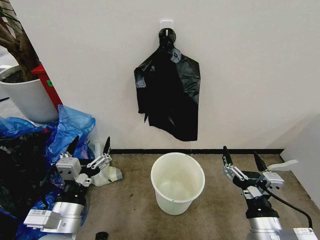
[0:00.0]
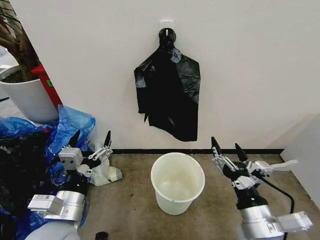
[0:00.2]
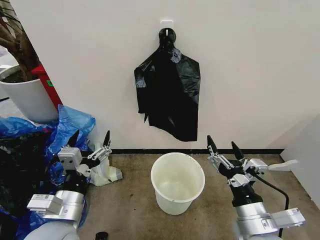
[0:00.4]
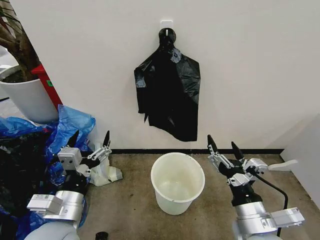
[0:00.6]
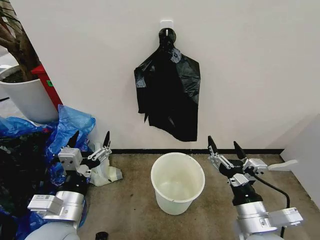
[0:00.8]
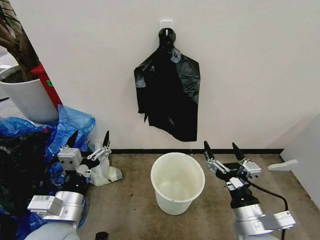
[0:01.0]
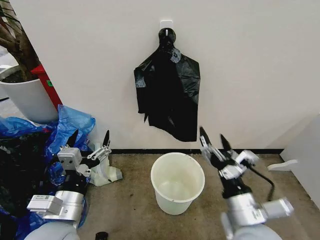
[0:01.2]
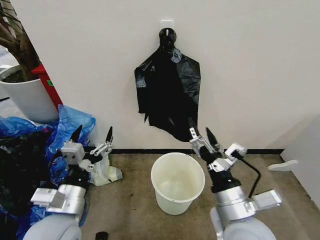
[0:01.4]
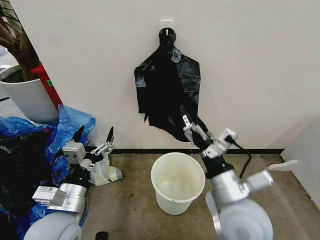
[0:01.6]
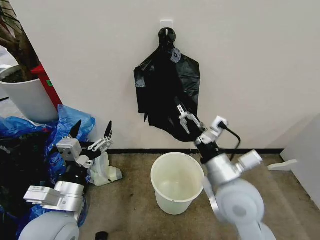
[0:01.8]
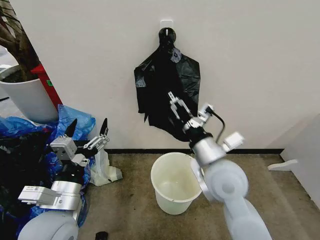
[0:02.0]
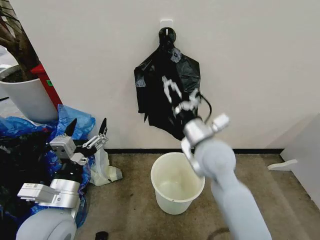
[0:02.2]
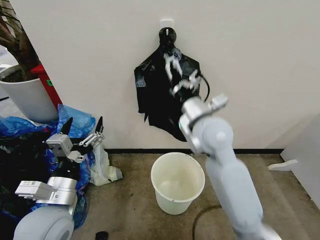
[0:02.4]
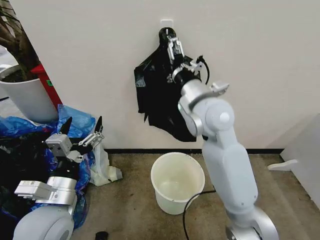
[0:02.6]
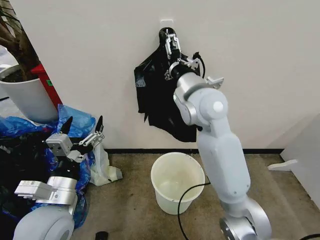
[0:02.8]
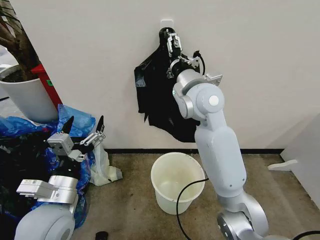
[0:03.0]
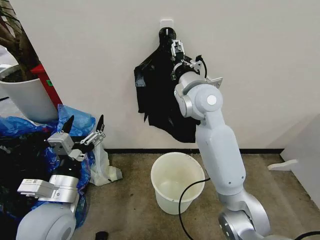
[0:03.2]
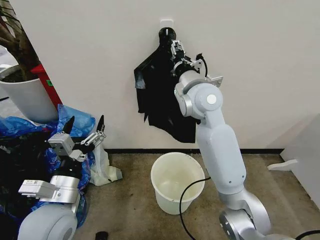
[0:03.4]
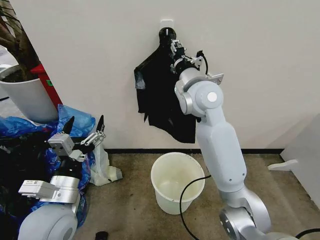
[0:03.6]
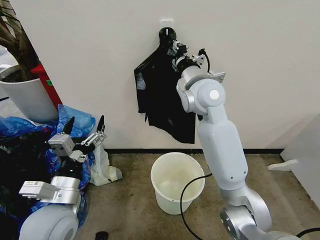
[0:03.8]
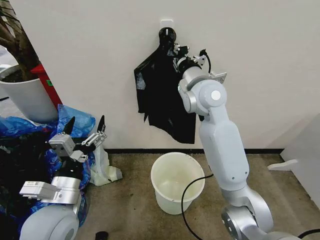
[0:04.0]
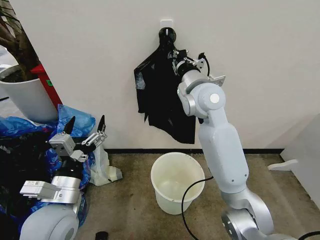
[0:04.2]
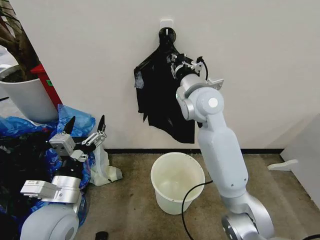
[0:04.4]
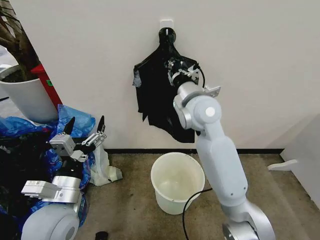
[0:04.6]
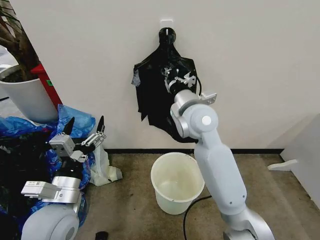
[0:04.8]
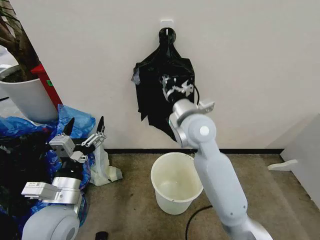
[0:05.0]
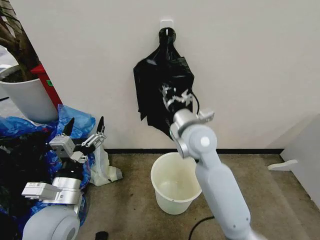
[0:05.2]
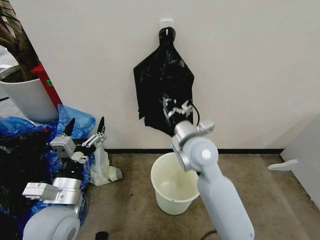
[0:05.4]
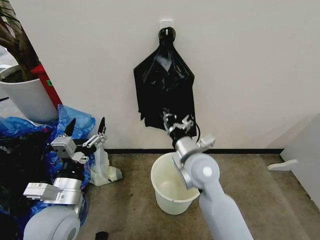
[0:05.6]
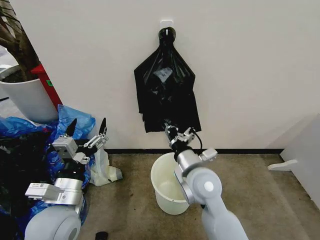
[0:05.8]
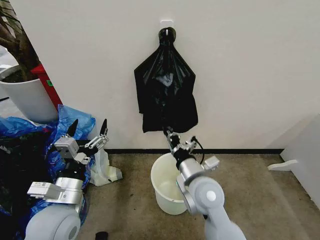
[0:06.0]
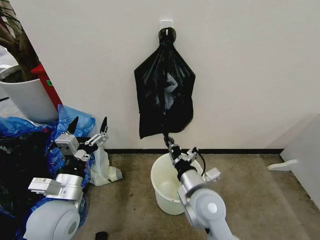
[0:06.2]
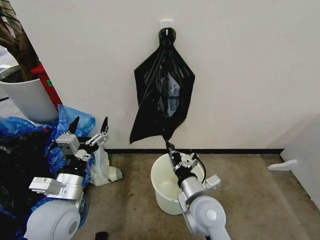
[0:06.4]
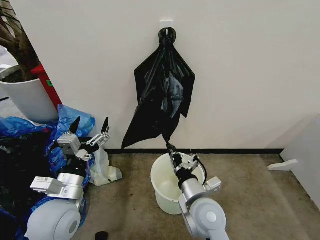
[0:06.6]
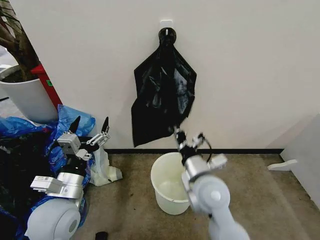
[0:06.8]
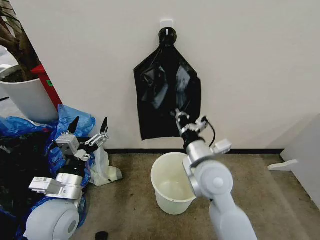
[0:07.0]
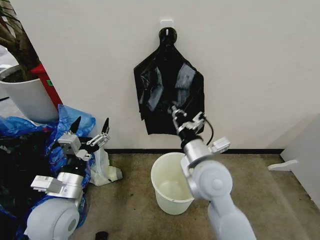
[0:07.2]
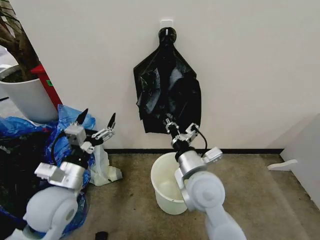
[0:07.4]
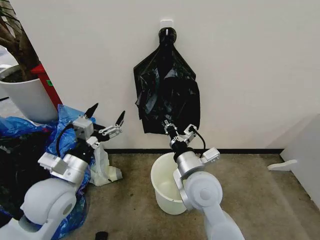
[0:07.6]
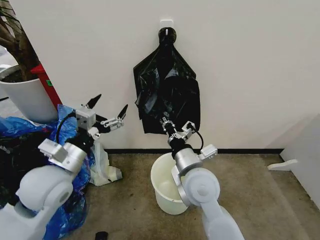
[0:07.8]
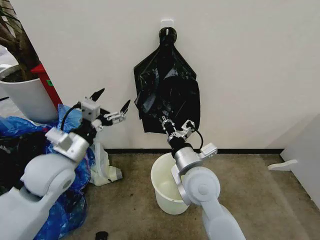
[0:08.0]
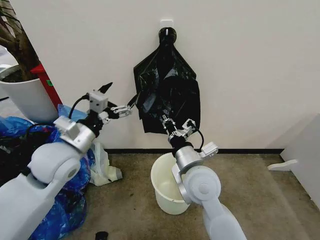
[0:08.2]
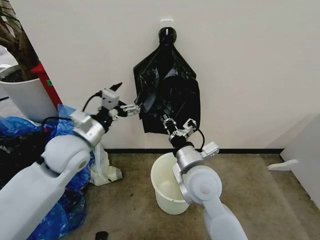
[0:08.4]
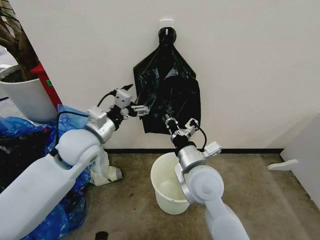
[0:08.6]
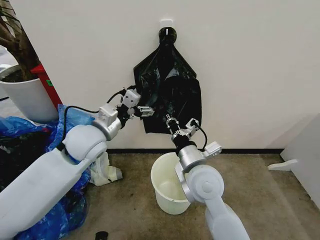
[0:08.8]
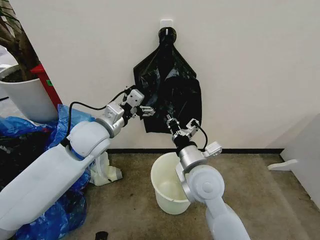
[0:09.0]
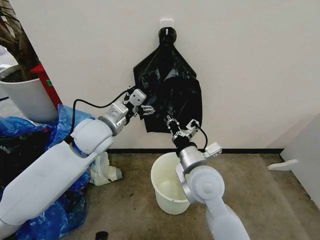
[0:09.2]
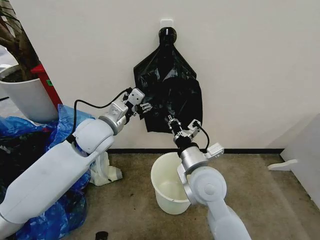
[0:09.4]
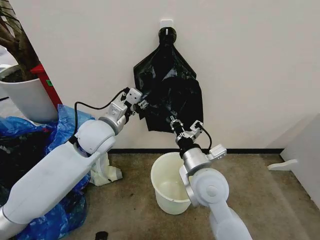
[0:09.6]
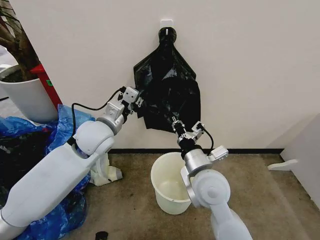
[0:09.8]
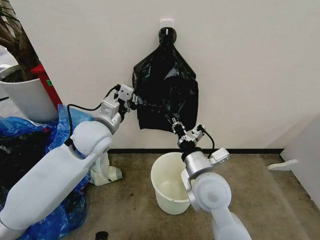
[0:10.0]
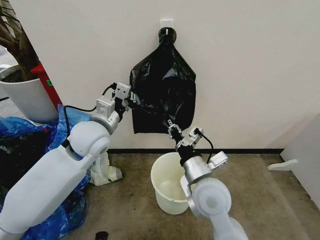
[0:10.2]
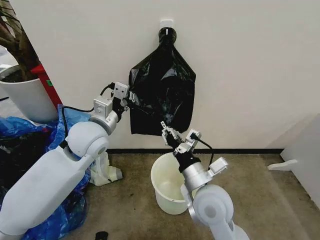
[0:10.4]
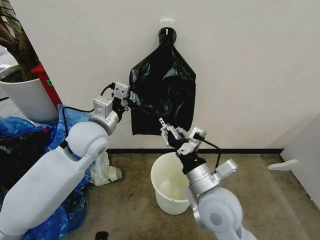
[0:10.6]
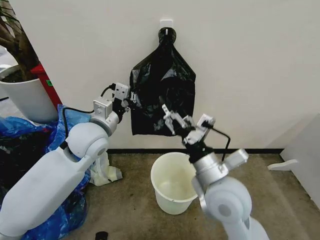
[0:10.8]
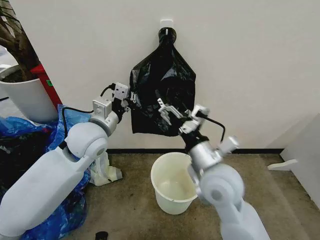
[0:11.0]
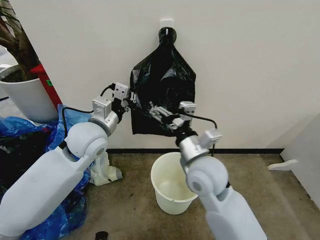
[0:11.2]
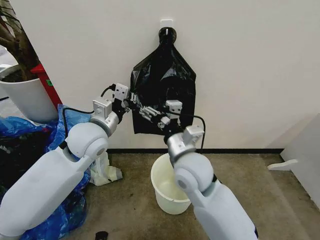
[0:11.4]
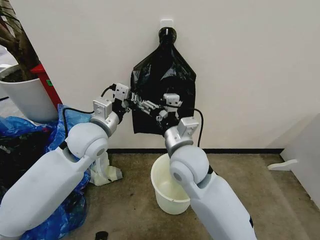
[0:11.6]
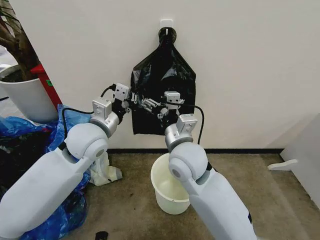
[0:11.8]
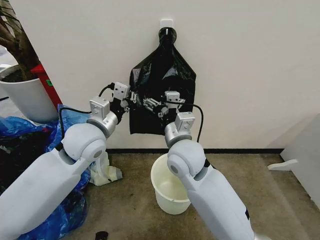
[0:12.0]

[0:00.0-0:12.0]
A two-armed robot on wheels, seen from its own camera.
Task of the whole recording: Place the garbage bag over the trash bin.
0:01.6 to 0:03.0: The right gripper is displaced forward and upward by roughly 25 cm.
0:03.0 to 0:04.4: The right gripper closes its fingers.
0:04.4 to 0:06.0: The right gripper is displaced downward and backward by approximately 25 cm.
0:06.0 to 0:07.6: The left gripper ends up approximately 5 cm from where it was, while the right gripper travels upward and back again, approximately 5 cm each way.
0:07.6 to 0:09.0: The left gripper travels forward, to the right and upward by approximately 15 cm.
0:09.0 to 0:10.4: The right gripper changes place by approximately 5 cm. Meanwhile the left gripper closes.
0:10.4 to 0:12.0: The right gripper shifts approximately 15 cm forward, upward and to the left, and opens its fingers.

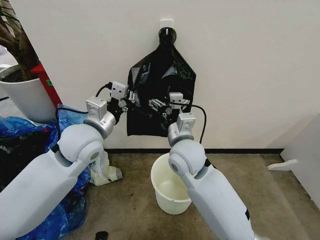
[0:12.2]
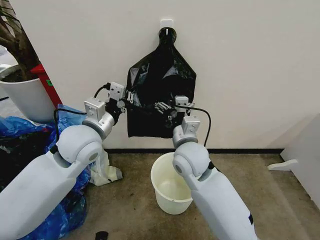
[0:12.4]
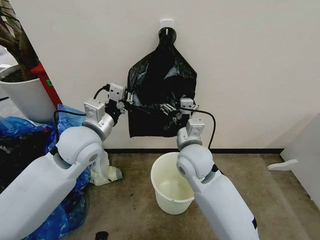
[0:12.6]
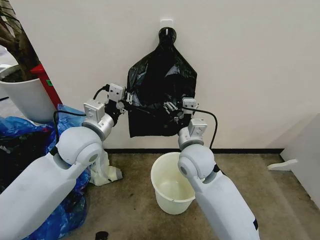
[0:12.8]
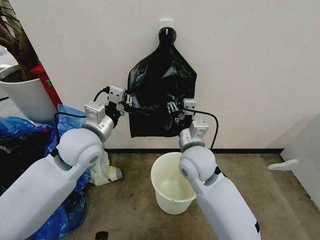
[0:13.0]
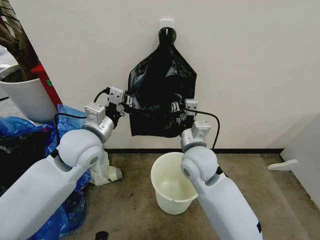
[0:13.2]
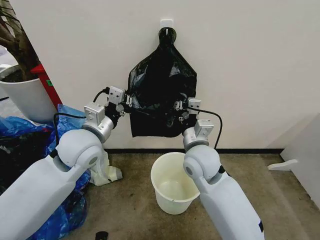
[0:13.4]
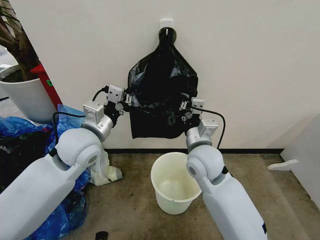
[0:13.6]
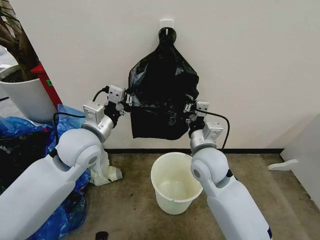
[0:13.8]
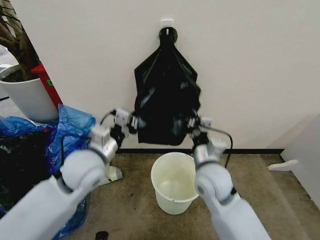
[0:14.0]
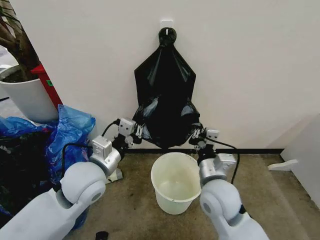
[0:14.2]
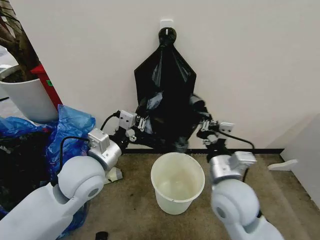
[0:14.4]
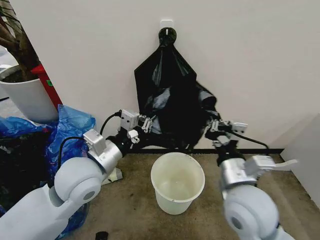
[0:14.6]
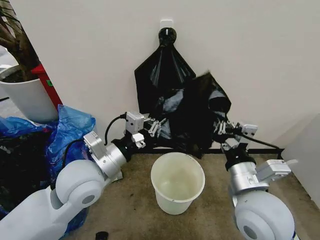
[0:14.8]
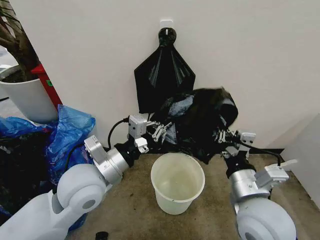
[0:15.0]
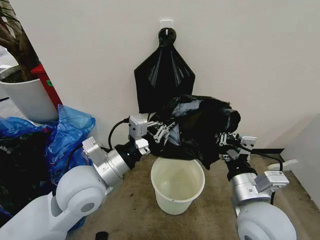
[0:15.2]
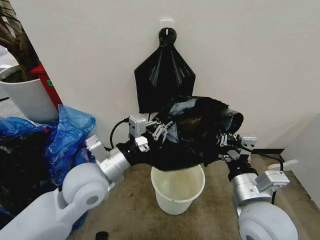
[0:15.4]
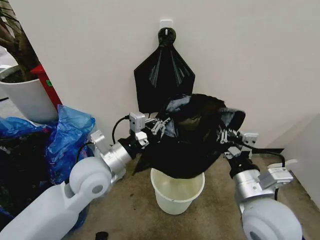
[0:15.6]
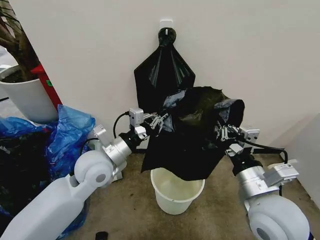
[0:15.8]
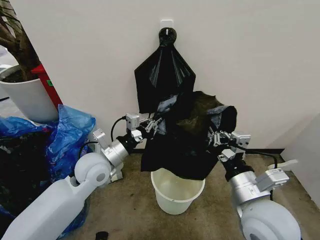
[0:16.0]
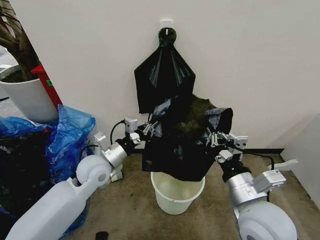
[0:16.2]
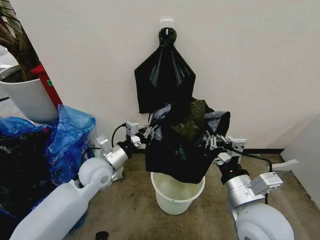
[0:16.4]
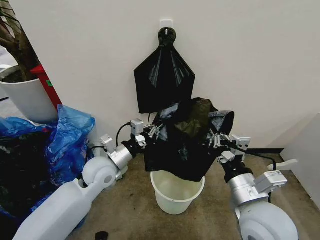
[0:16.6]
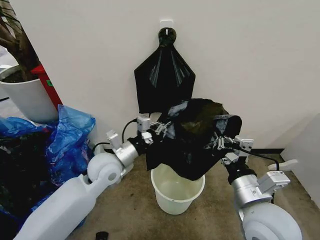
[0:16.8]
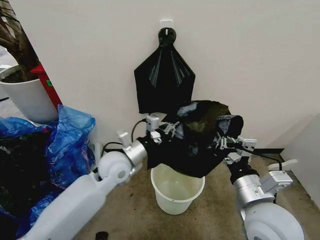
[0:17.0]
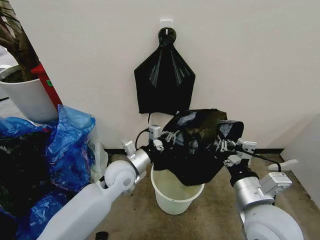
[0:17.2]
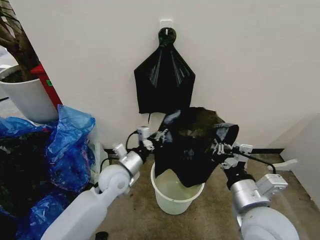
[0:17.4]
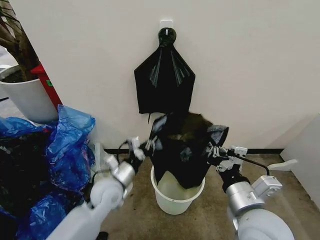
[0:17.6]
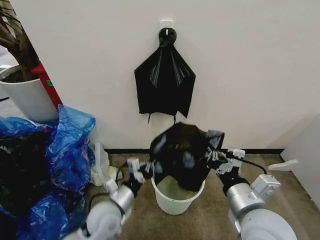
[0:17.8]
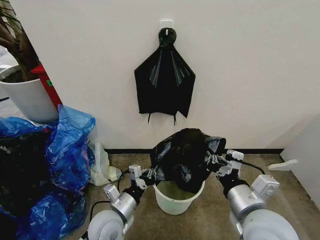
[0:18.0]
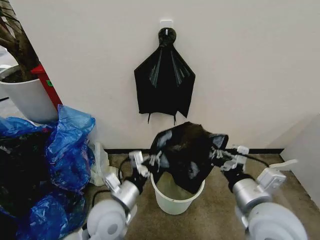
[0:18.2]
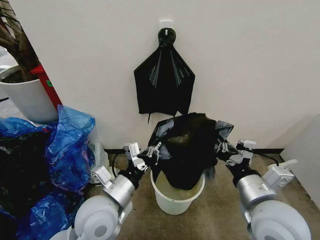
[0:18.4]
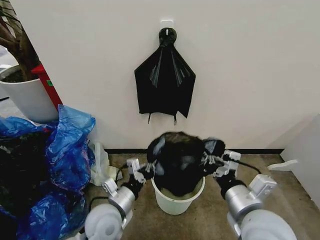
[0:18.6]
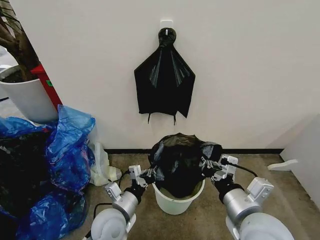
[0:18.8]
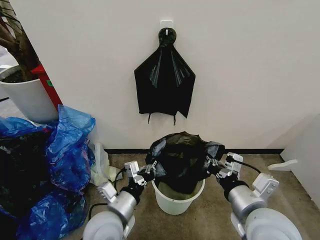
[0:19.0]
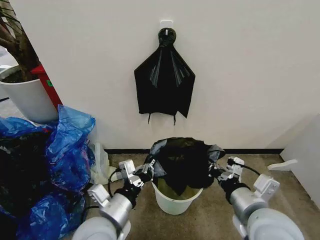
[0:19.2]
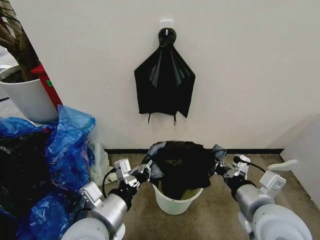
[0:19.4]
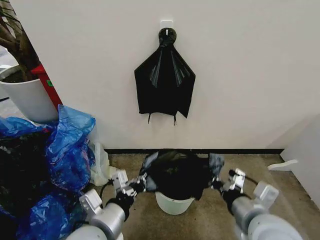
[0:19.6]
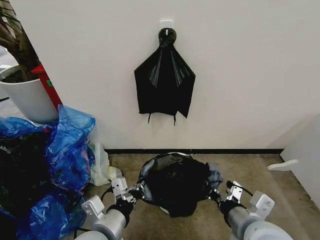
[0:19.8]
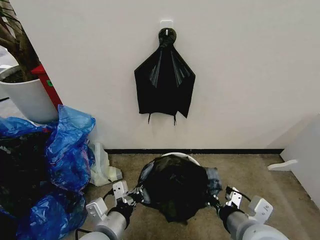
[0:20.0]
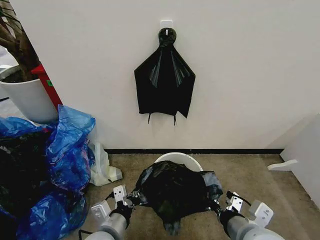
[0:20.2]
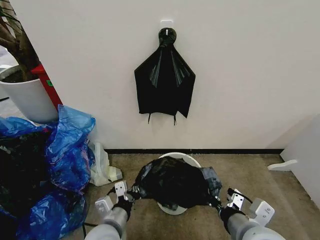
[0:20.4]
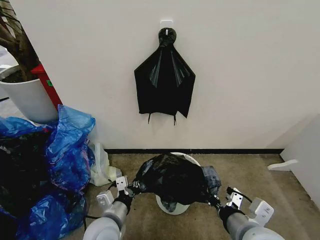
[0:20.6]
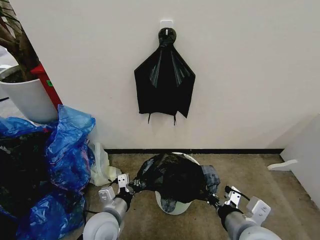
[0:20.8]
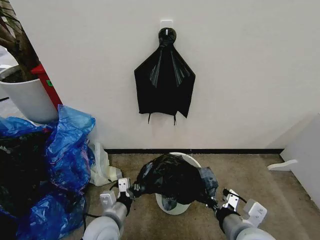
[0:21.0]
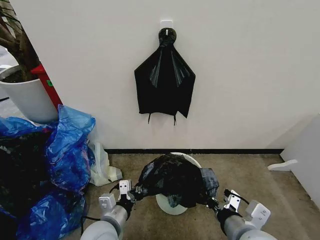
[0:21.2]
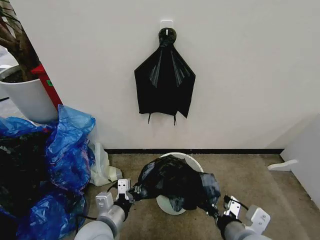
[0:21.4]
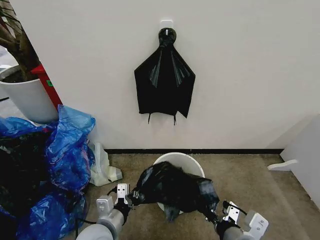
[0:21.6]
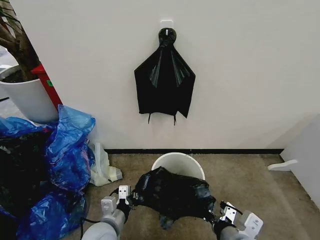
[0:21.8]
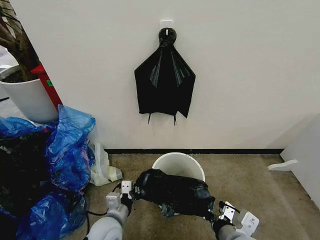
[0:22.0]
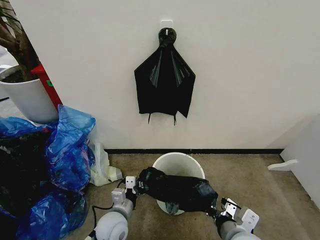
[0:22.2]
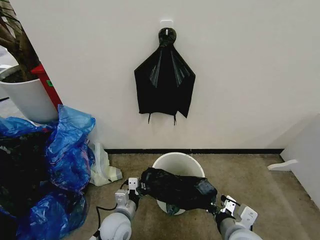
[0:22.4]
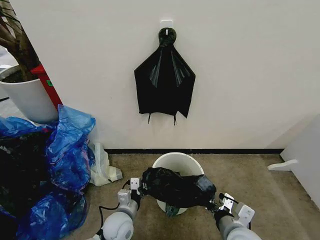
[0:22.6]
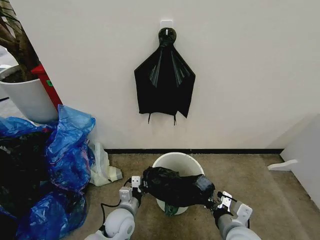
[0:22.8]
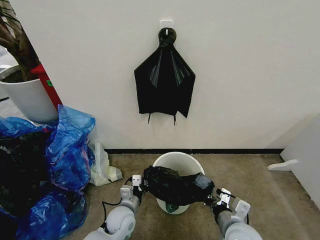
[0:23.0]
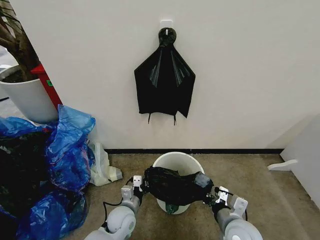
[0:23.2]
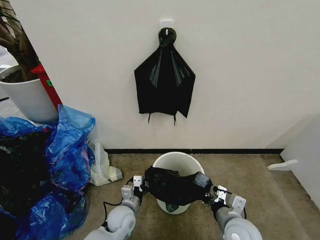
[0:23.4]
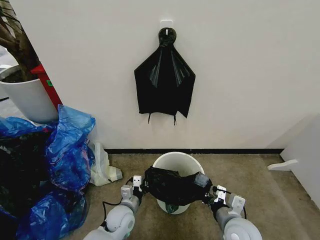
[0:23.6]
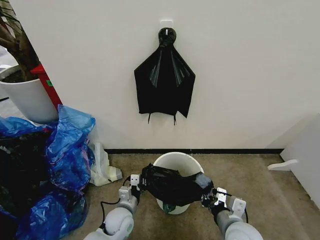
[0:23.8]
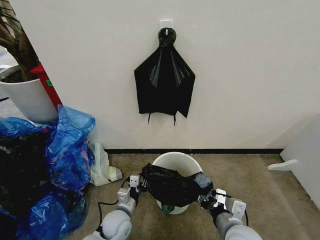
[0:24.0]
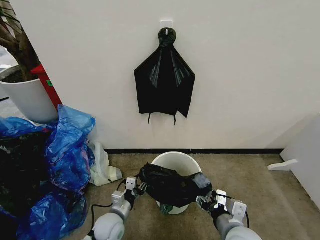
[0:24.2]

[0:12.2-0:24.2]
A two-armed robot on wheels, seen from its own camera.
Task of the whole recording: Place the garbage bag over the trash bin.
0:12.2 to 0:13.8: The right gripper moves to the right, approximately 5 cm, and closes up.
0:13.8 to 0:15.2: The right gripper is displaced backward and to the right by some 15 cm. The left gripper is displaced backward by roughly 10 cm.
0:15.2 to 0:16.6: The left gripper shifts roughly 15 cm downward and forward.
0:16.6 to 0:18.2: The left gripper is displaced backward by approximately 10 cm.
0:18.2 to 0:19.8: The left gripper swings up and down, roughly 15 cm each way, with 2 reversals.
0:19.8 to 0:21.2: The left gripper shifts some 10 cm downward.
0:21.2 to 0:22.6: The right gripper moves downward, some 10 cm; the left gripper travels downward and forward by about 10 cm.
0:22.6 to 0:24.2: The left gripper opens. The right gripper opens its fingers.
